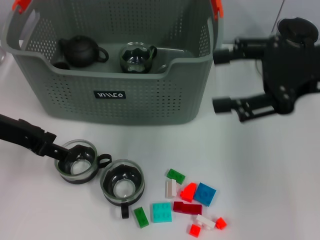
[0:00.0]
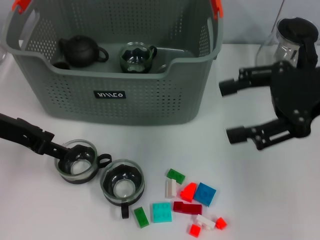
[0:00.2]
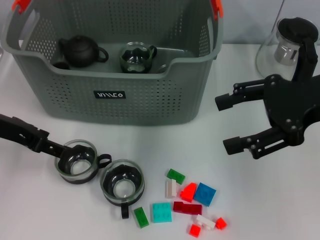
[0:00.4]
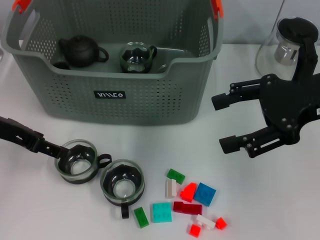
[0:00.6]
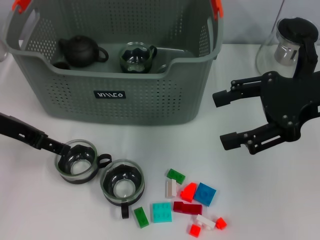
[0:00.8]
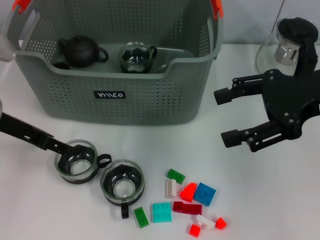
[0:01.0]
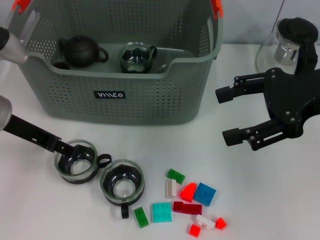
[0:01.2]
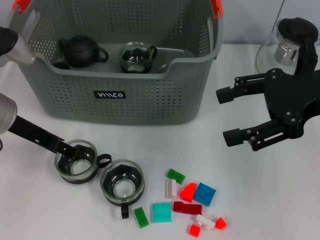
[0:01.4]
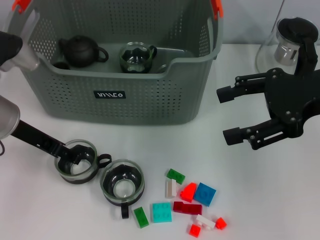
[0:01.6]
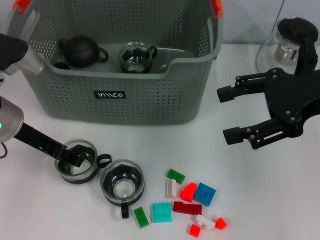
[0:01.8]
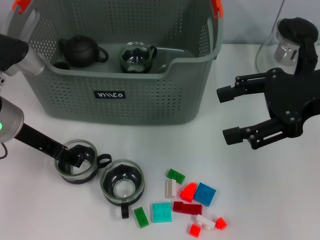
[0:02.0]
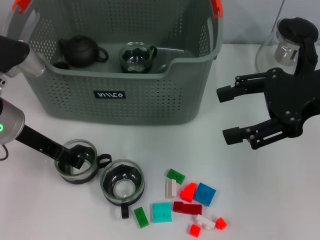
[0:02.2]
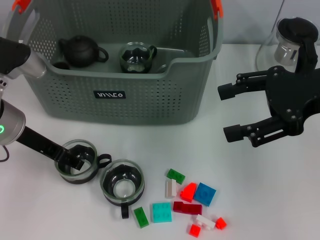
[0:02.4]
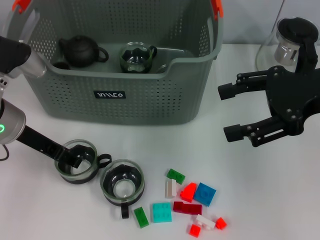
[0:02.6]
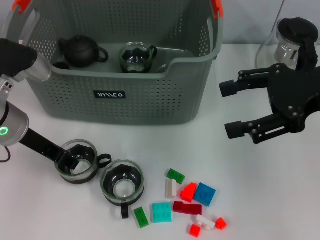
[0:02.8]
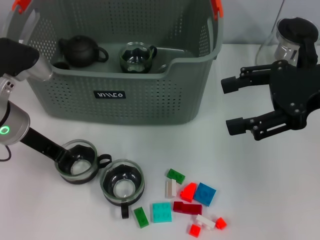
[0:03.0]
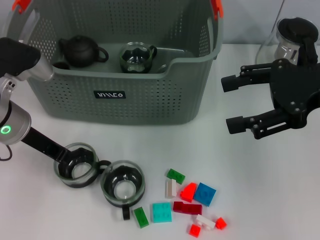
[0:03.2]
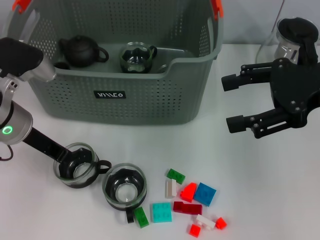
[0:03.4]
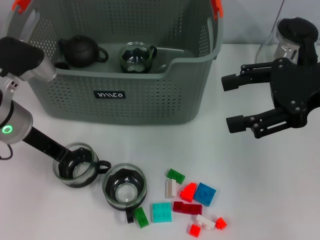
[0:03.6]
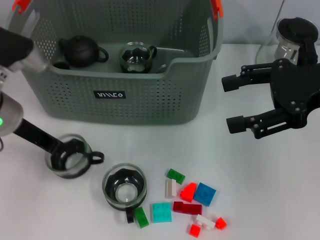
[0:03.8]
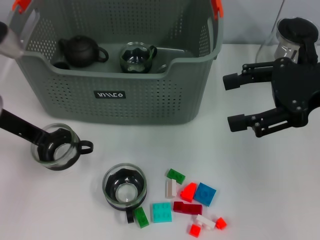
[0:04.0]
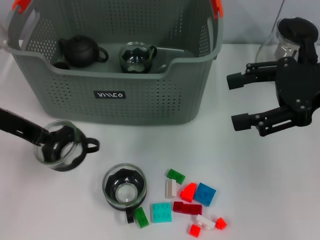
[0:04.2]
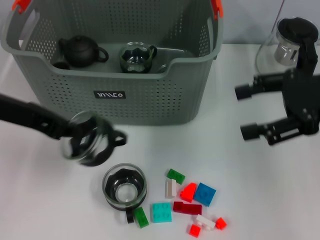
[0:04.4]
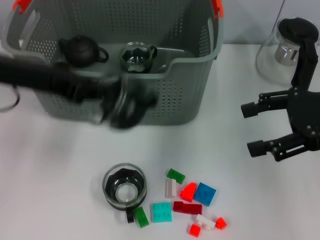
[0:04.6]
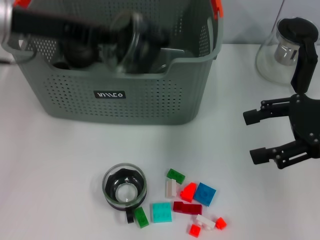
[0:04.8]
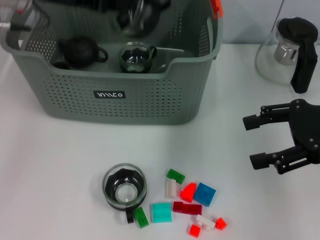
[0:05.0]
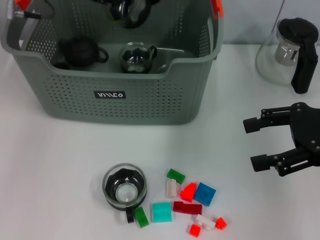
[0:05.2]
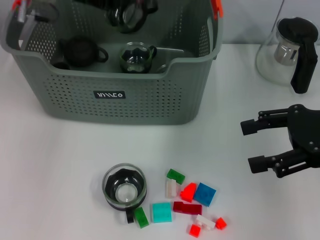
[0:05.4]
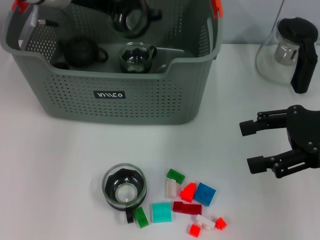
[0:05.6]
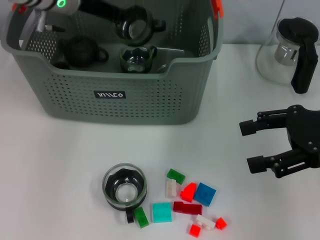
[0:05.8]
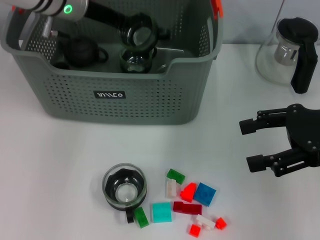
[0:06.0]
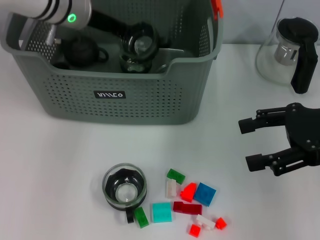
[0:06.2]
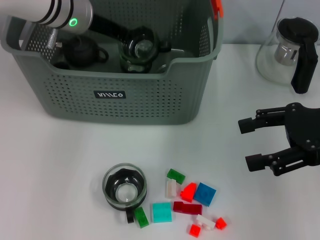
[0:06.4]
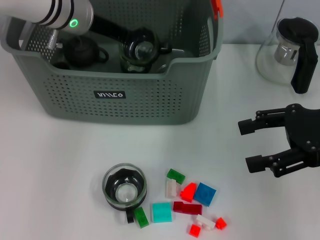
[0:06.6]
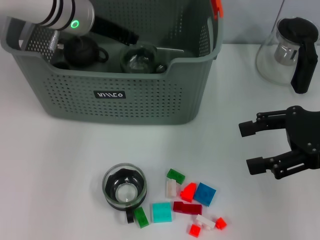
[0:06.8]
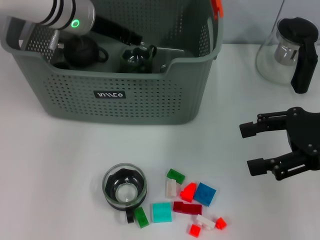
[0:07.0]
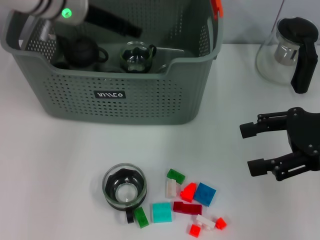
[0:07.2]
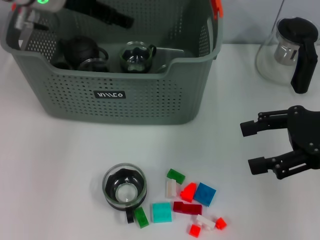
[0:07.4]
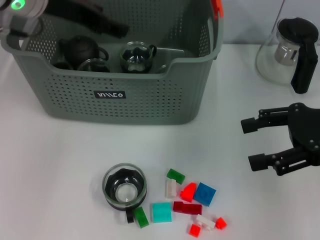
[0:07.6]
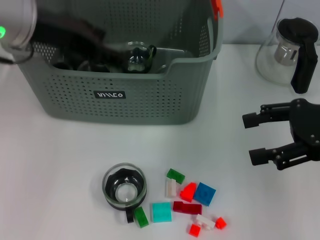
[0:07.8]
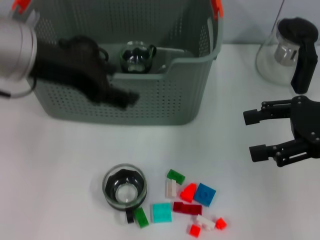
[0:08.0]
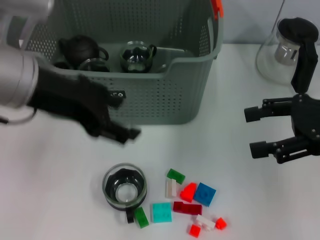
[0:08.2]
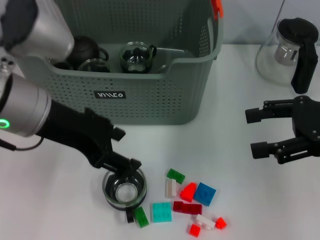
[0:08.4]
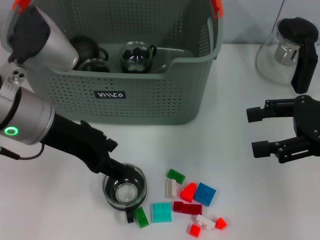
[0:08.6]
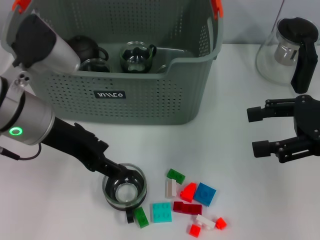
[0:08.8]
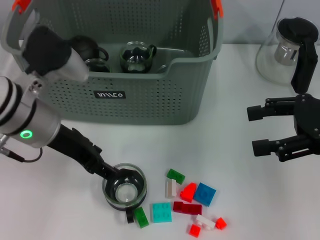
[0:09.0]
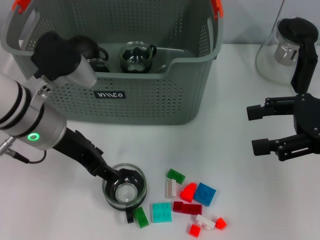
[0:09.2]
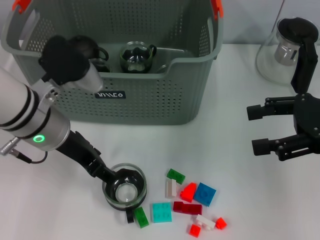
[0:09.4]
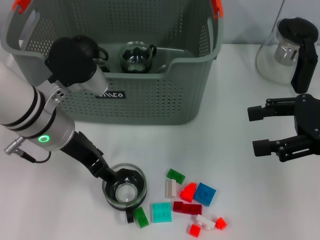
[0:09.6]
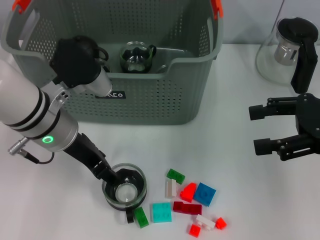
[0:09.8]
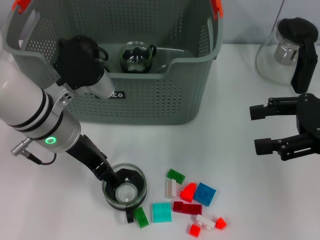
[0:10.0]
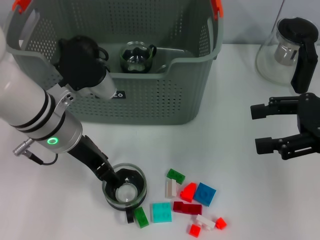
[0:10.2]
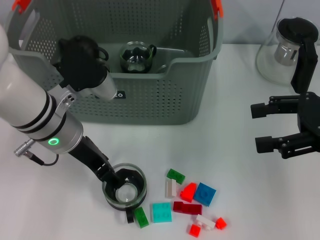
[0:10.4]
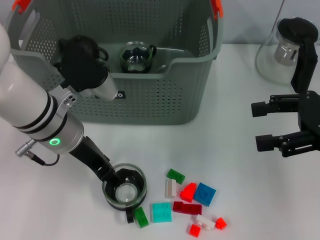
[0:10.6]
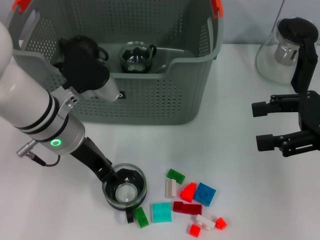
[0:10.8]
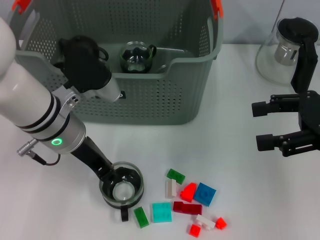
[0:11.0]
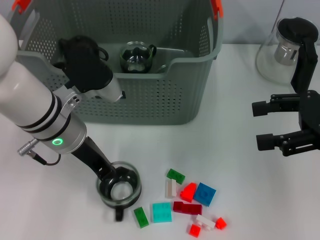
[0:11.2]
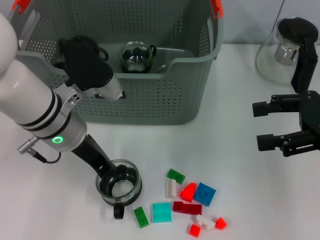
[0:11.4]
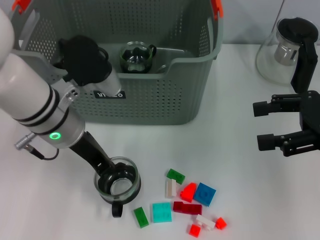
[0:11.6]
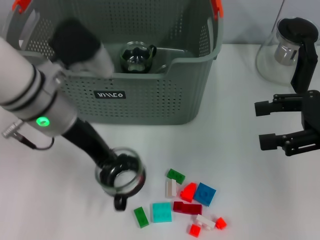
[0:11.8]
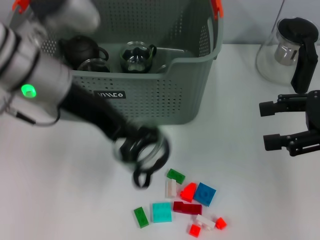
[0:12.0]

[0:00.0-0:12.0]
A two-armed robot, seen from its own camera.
Task of the whole recording: pick up the teacup on the table and place it into the storage bin, pick up the block on the table and place it into the storage bin.
Step, 0:00.0 to 0:03.2: Grasp the cup with left gripper.
Step, 0:03.4 to 0:07.0: Place the cup in the storage box with left gripper.
Step, 0:07.2 to 0:11.0: Grasp the cup with left gripper.
0:00.0 to 0:01.6: The grippers make only small movements.
0:01.6 to 0:03.0: The left gripper closes up.
0:03.0 to 0:04.4: The left gripper heads upward, covering about 10 cm, and closes.
0:04.4 to 0:06.0: The left gripper moves forward and to the right, approximately 20 cm.
0:06.0 to 0:07.6: The left gripper is displaced backward and upward by some 10 cm, and opens up.
0:07.6 to 0:09.0: The left gripper moves downward and backward, some 15 cm.
0:09.0 to 0:10.4: There are only small adjustments of the grippers.
0:10.4 to 0:12.0: The left gripper heads upward, covering about 10 cm, and closes its fingers.

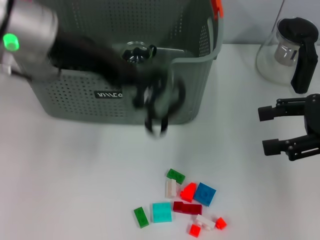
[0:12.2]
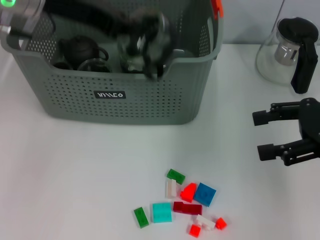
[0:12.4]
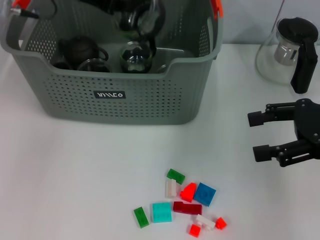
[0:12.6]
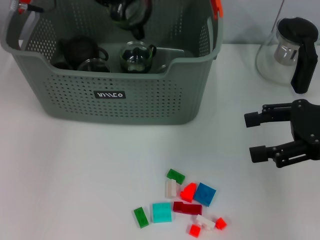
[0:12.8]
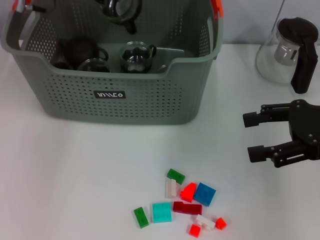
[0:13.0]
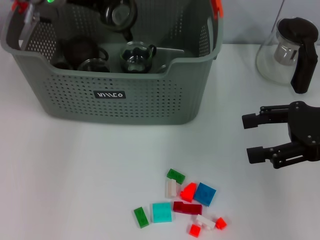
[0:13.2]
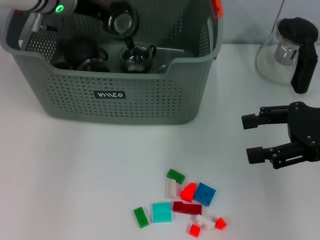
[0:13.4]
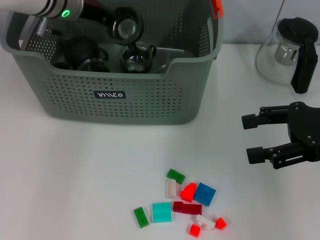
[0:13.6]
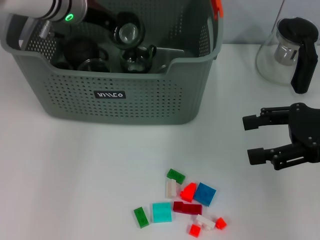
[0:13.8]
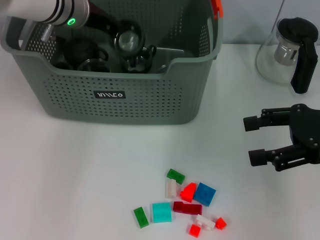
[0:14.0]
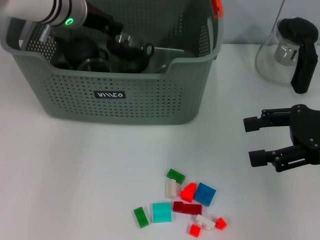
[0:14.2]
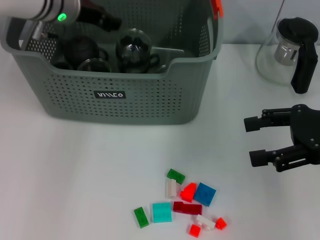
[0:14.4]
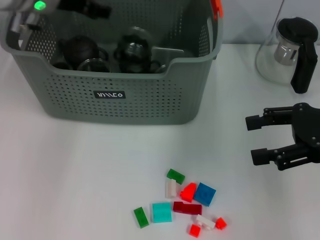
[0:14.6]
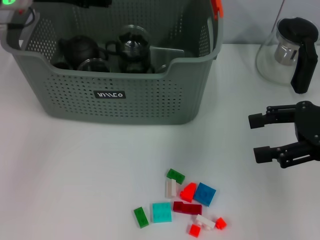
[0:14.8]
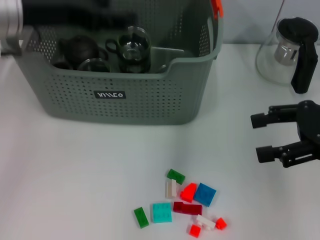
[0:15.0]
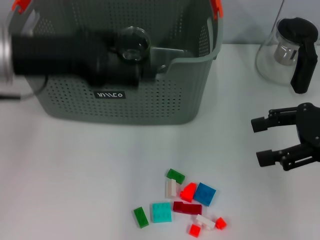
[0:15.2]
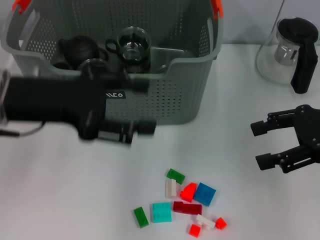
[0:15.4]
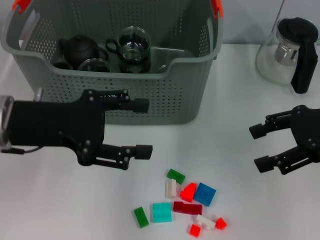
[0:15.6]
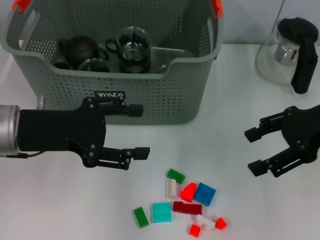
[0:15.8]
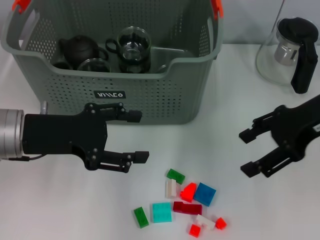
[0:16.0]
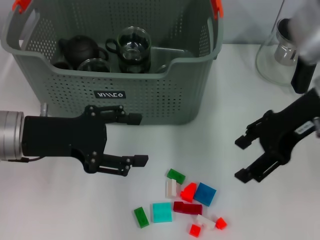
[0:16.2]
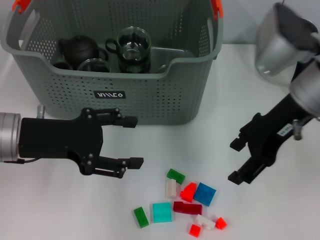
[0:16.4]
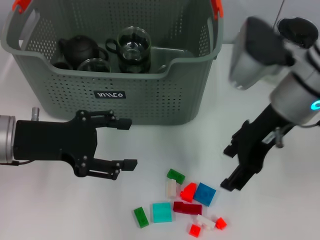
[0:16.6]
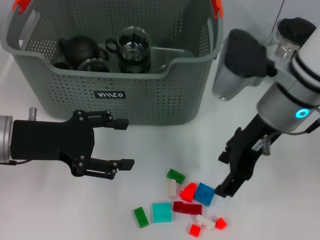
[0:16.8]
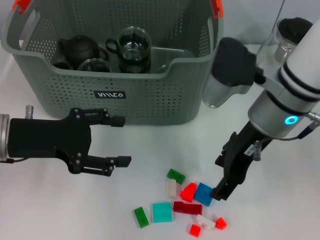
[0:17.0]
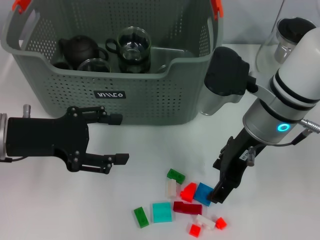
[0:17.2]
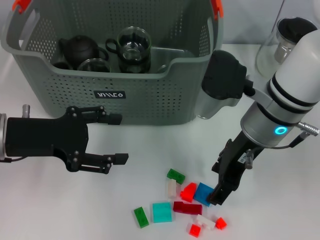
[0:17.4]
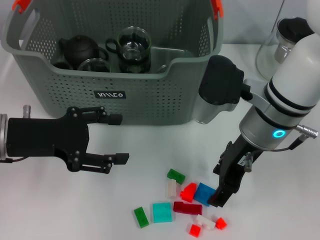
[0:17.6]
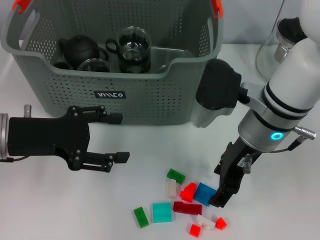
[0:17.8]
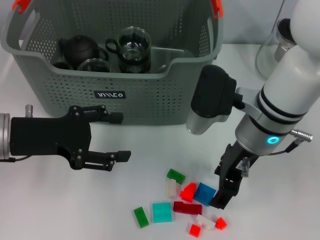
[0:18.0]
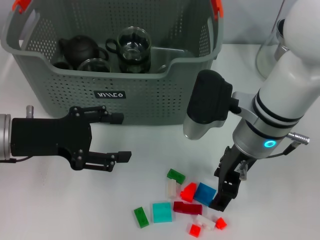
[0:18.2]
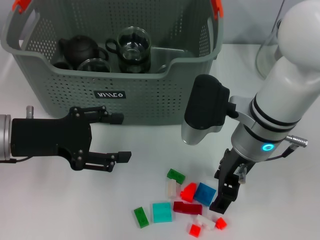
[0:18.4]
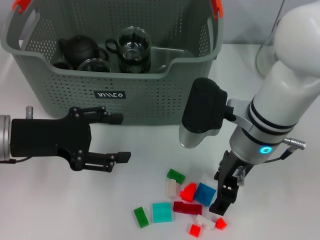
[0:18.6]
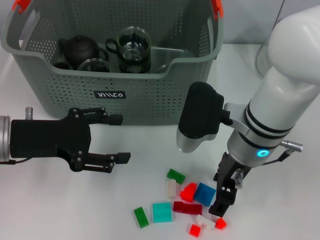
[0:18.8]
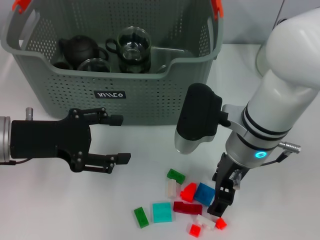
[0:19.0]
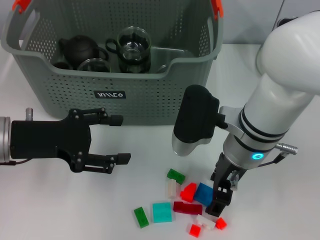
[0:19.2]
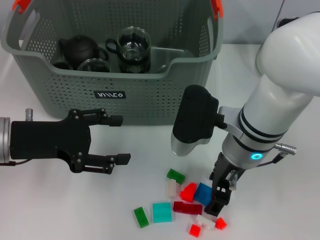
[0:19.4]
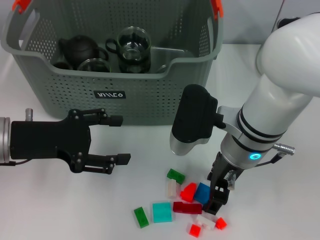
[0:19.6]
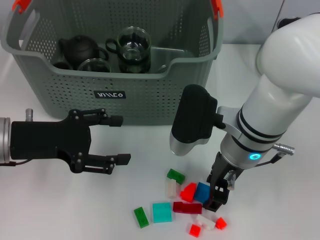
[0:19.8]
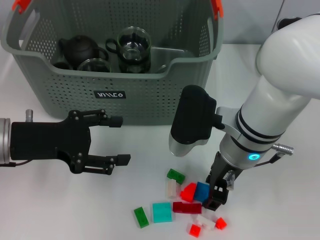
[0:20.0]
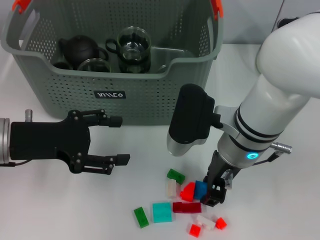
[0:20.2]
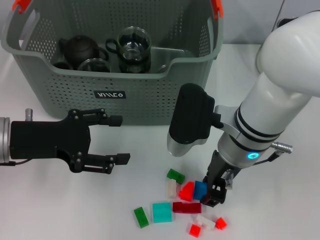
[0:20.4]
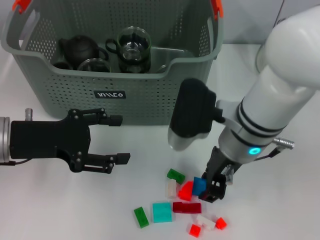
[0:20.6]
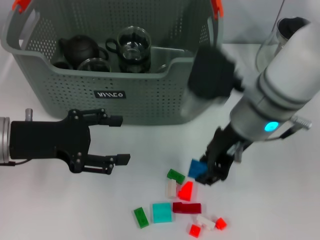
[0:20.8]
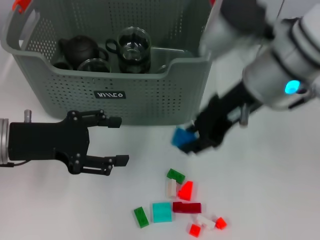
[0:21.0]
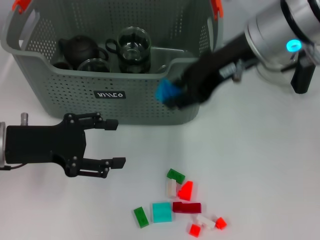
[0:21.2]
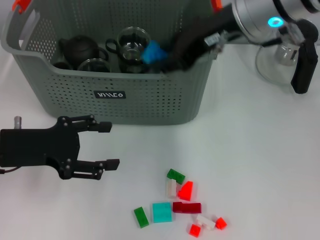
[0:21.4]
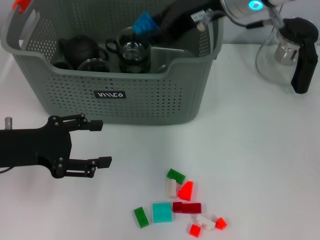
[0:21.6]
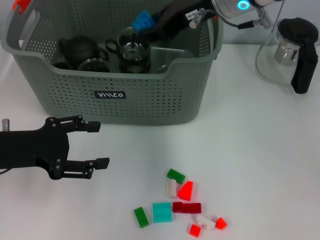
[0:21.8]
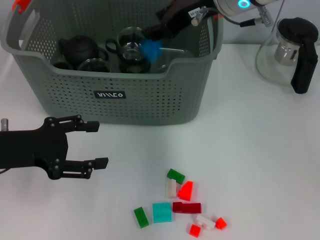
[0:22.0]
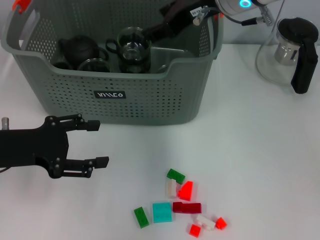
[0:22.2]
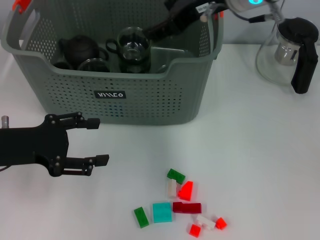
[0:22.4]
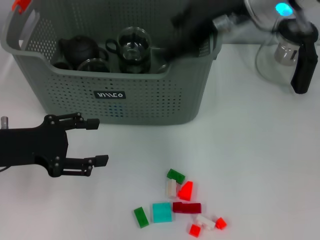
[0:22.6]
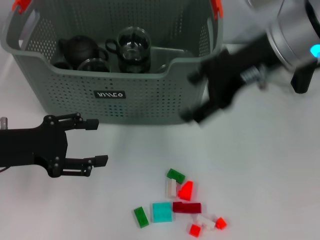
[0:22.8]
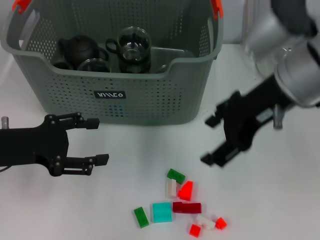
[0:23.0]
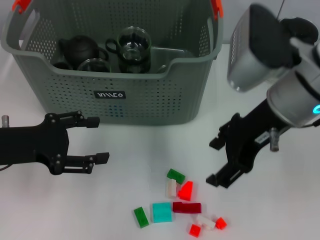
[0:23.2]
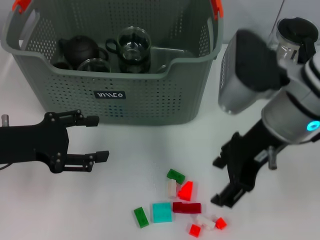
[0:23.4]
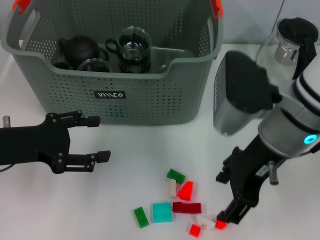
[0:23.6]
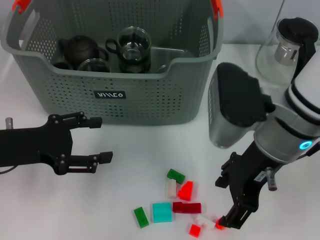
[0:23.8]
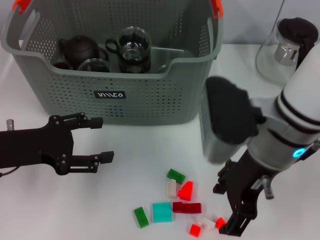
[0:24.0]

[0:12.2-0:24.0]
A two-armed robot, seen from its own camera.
Task of the whole recording: pick up the teacup on the table and place it into the storage bin, pick up the block on the table and place it into the storage bin.
Step, 0:12.2 to 0:14.2: Place the cup in the storage box with left gripper.
Step, 0:14.4 to 0:20.2: Grasp the dark blue block with right gripper.
Step, 0:20.4 to 0:22.0: Place the dark blue block in the storage box with right gripper.
0:12.2 to 0:13.6: The left gripper travels forward and downward by about 15 cm.
0:13.6 to 0:15.2: The left gripper moves backward, about 15 cm, and opens.
0:15.2 to 0:16.6: The right gripper goes some 15 cm to the left. The left gripper is displaced downward by about 10 cm.
0:16.6 to 0:18.2: The right gripper travels downward by roughly 5 cm.
0:18.2 to 0:19.6: The grippers stay close to where they were, moving slightly.
0:19.6 to 0:21.0: The right gripper moves upward, approximately 10 cm, and closes up.
0:21.0 to 0:22.6: The right gripper moves about 5 cm, and opens its fingers.
0:22.6 to 0:24.0: The right gripper heads downward and backward, covering about 15 cm.
